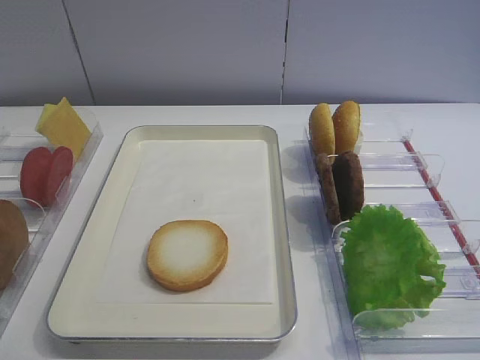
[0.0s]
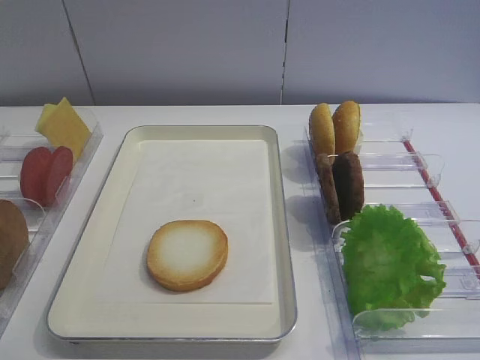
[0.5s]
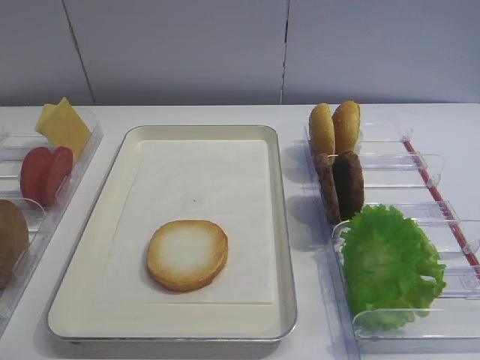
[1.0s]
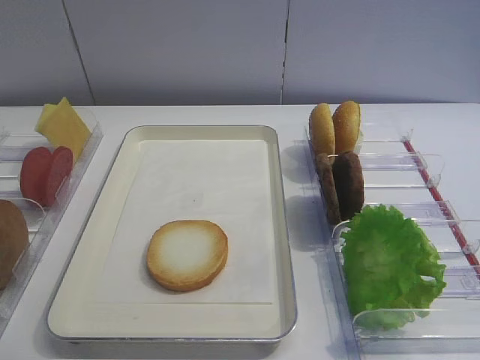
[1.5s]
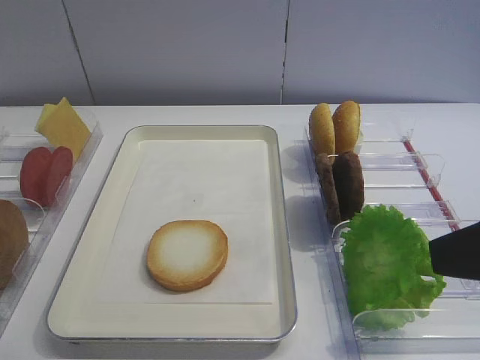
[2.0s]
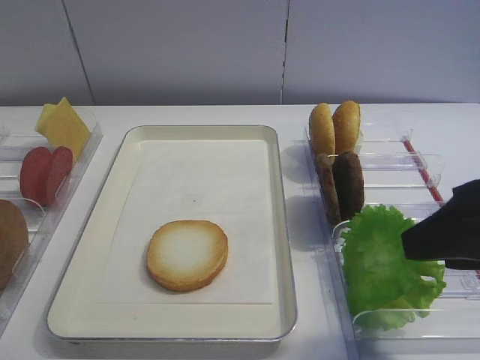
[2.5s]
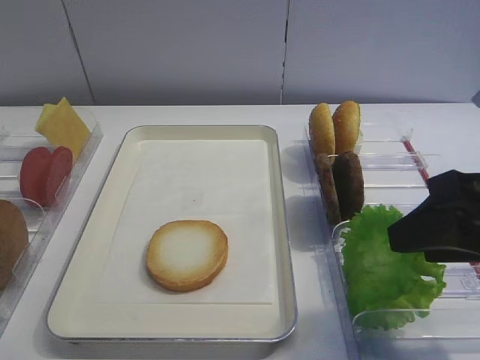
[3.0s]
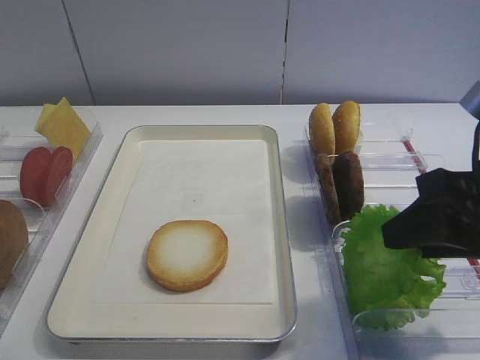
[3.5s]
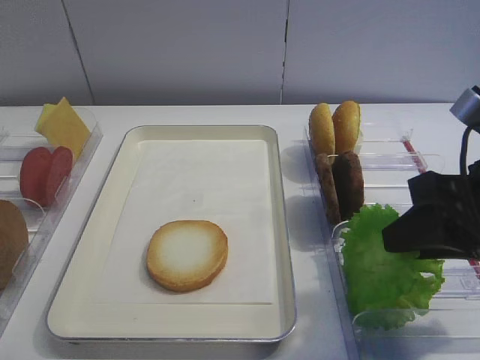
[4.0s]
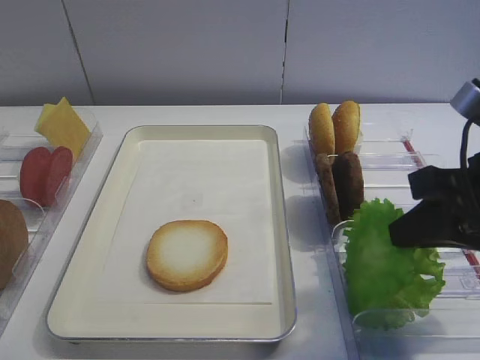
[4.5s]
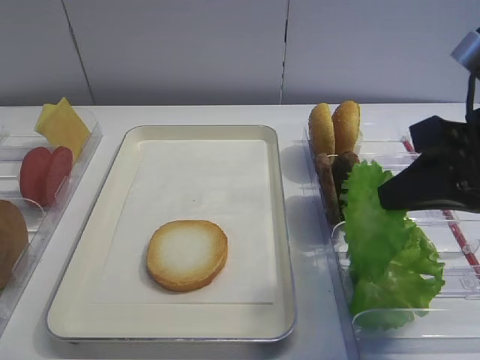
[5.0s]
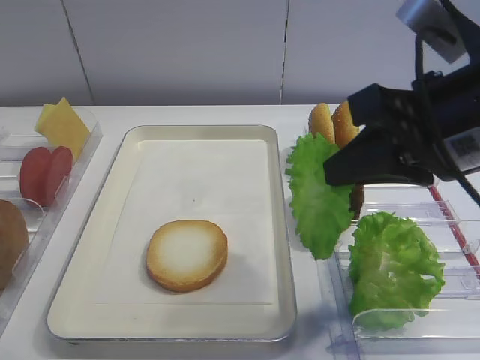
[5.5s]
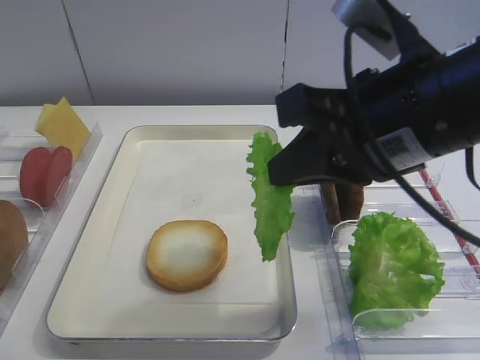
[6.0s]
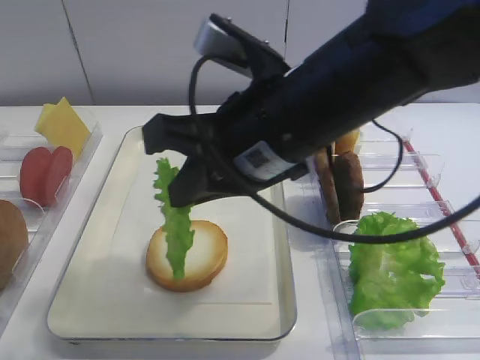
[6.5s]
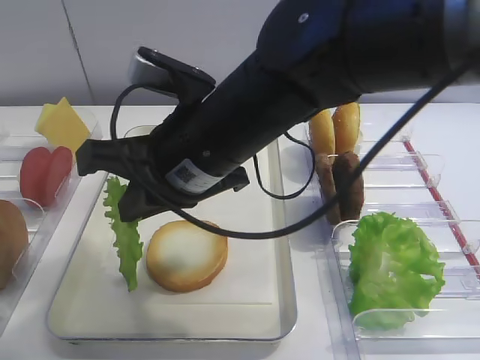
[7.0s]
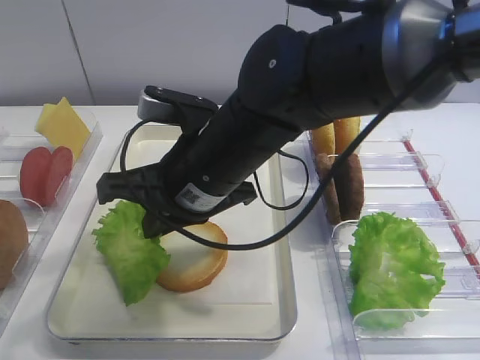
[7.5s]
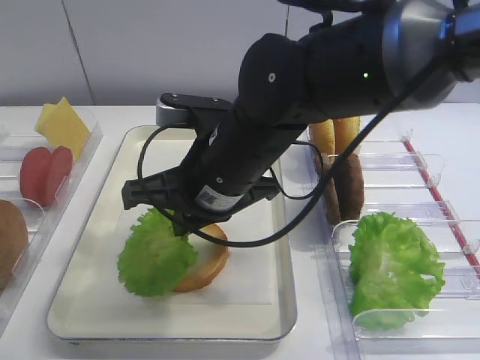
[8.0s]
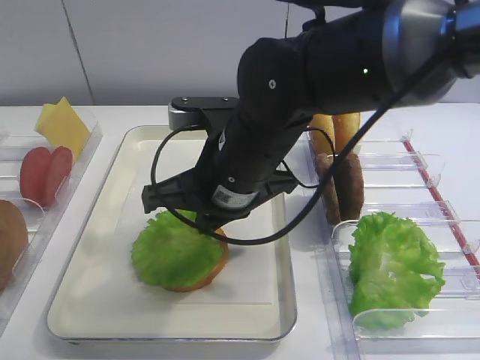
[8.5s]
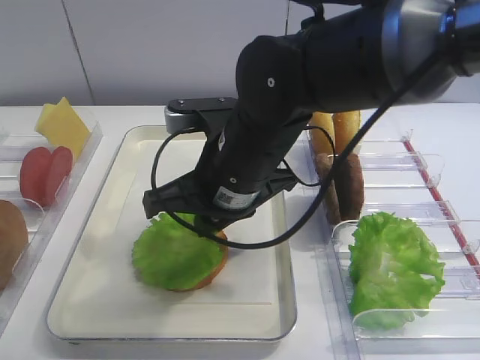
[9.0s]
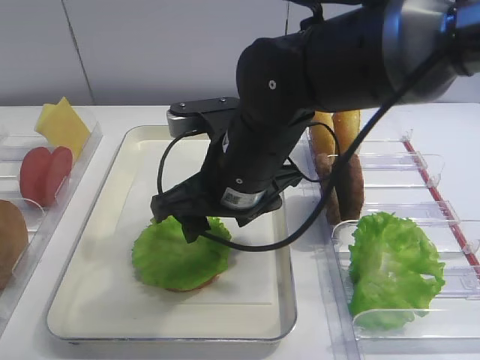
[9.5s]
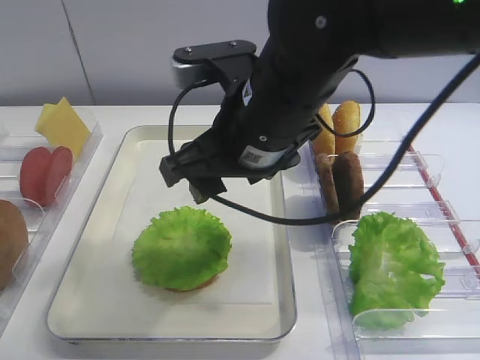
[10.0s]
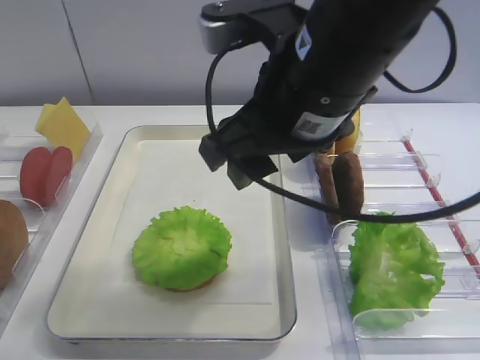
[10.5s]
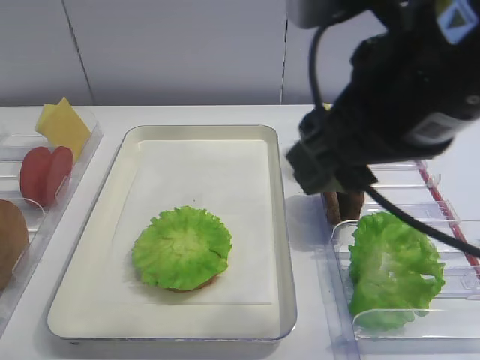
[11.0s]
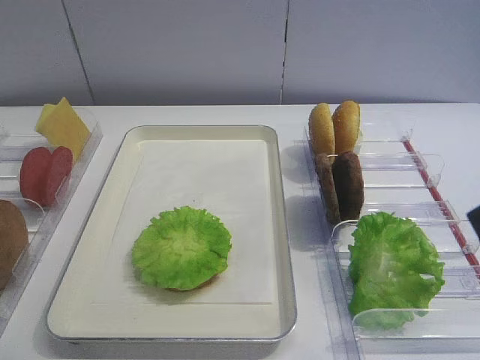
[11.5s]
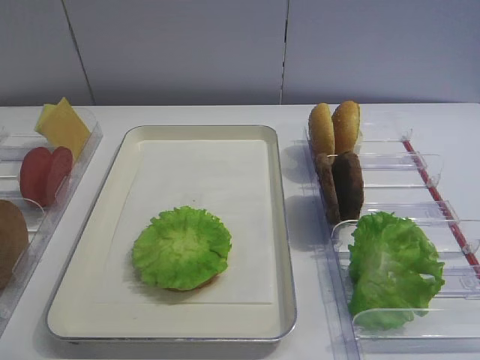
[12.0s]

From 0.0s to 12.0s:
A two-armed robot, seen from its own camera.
Step, from 0.0s to 4.5s: Pick up the lettuce leaf with the right gripper.
Step, from 5.0s to 9.5s: Place the lettuce leaf on the bread slice with the right gripper.
From 2.0s to 4.0s: The right gripper travels forward and downward by approximately 10 cm, and closes up.
From 4.0s to 6.0s: The right gripper shifts some 15 cm to the left and upward.
From 6.0s to 8.0s: The right gripper heads to the left, downward and forward, covering about 15 cm.
From 8.0s to 10.0s: The right gripper heads upward, covering about 5 cm, and opens.
From 10.0s to 12.0s: The right gripper shifts about 30 cm to the right and backward.

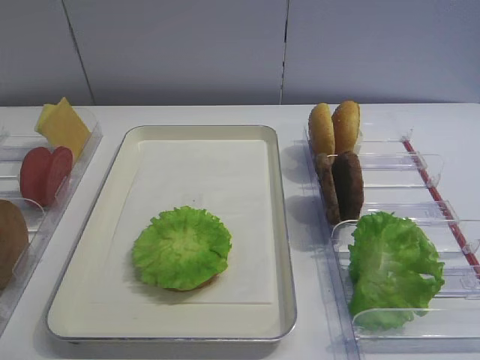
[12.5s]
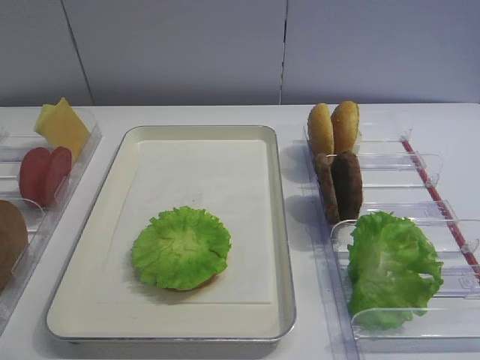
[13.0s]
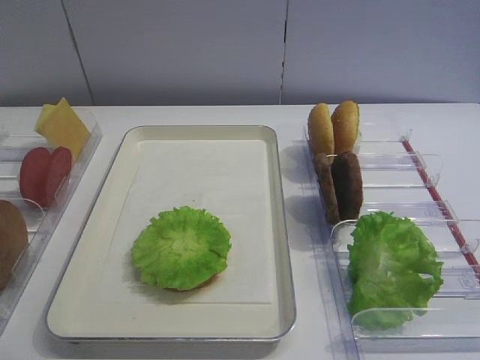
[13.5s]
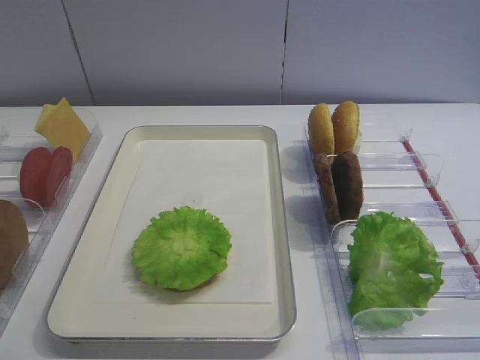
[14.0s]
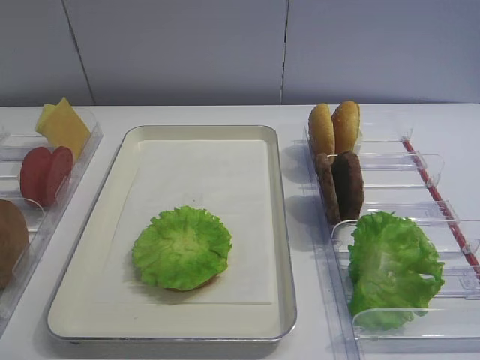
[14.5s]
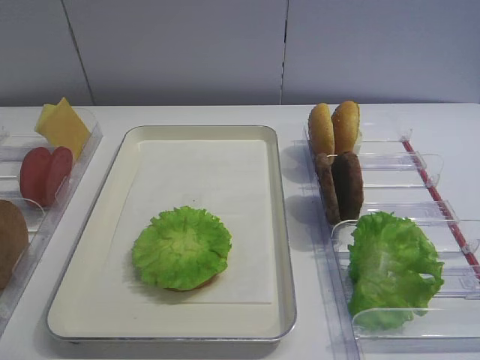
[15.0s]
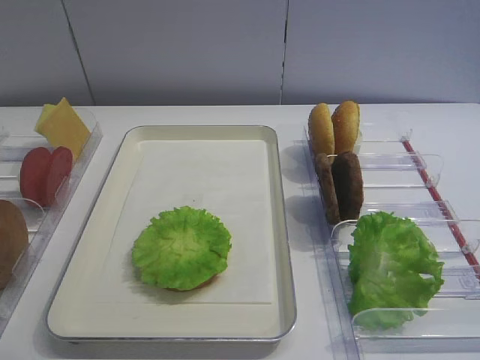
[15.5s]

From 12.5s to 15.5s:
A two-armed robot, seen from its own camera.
From 14.0s to 15.5s: The two grippers keep their place.

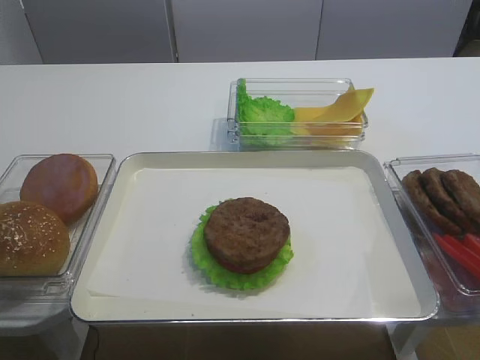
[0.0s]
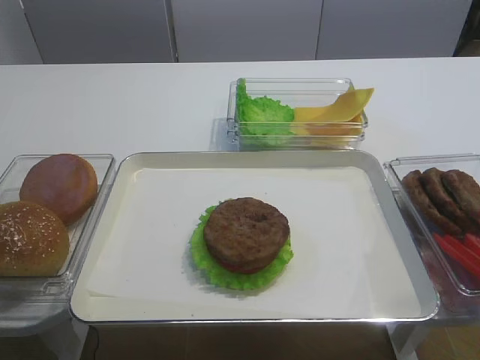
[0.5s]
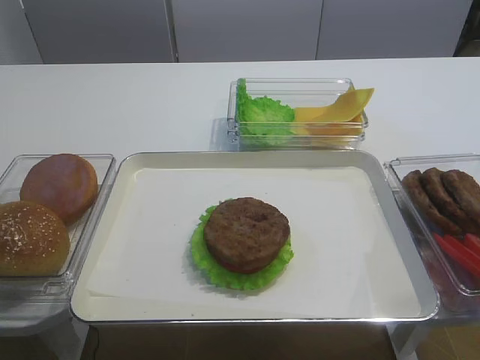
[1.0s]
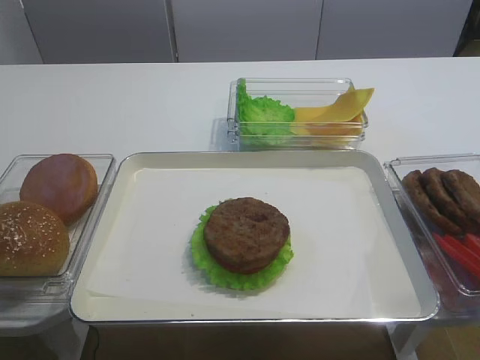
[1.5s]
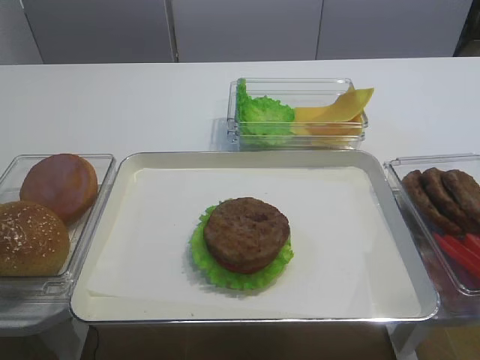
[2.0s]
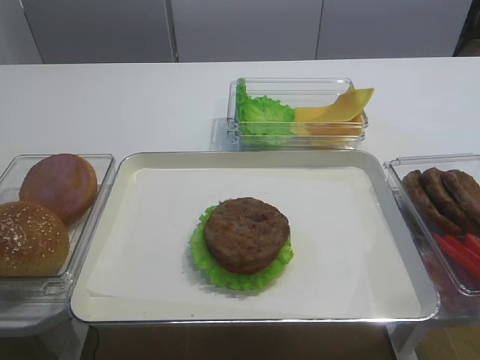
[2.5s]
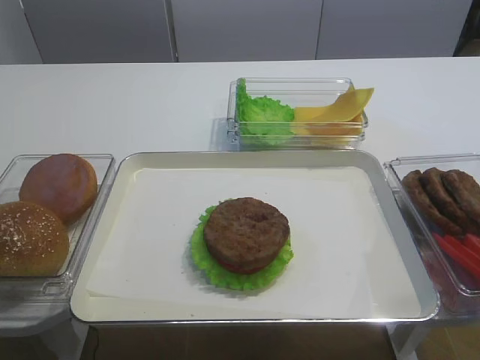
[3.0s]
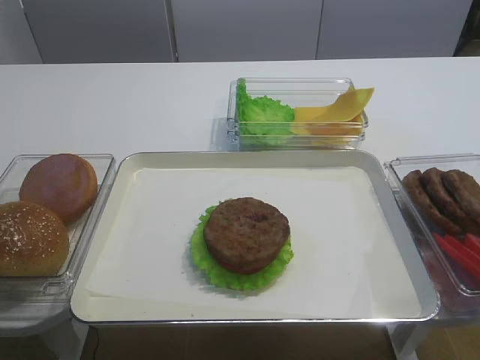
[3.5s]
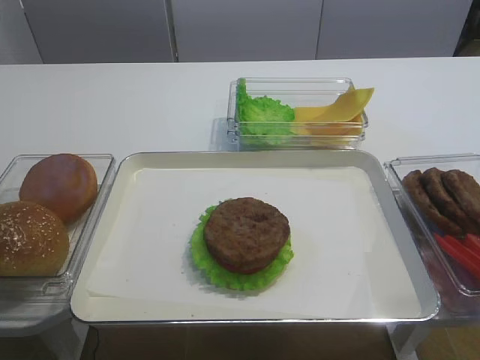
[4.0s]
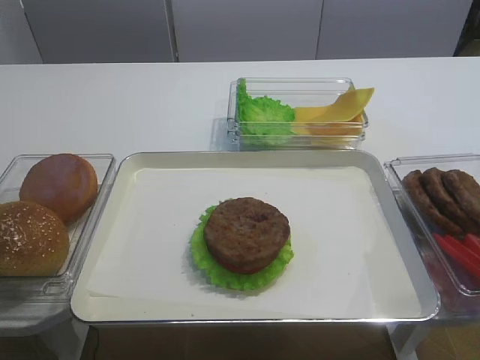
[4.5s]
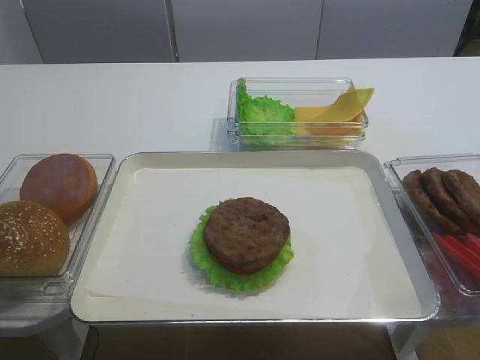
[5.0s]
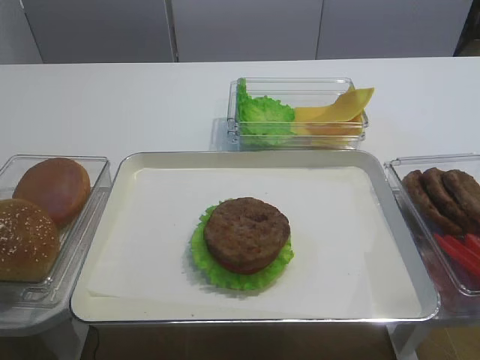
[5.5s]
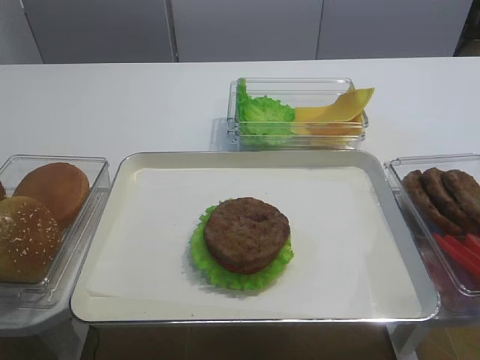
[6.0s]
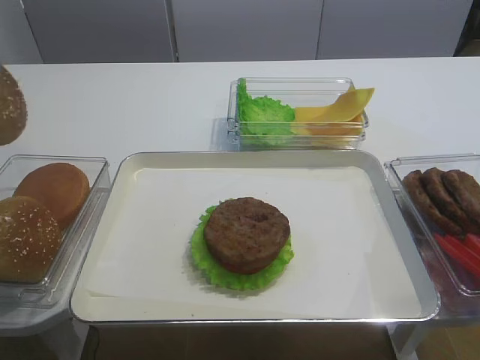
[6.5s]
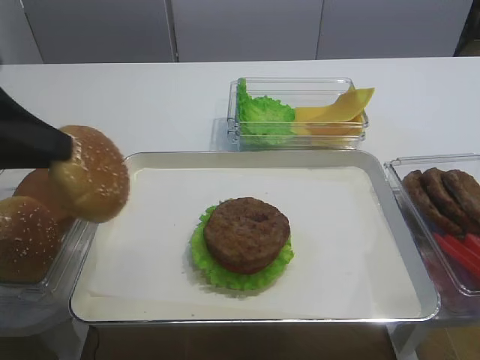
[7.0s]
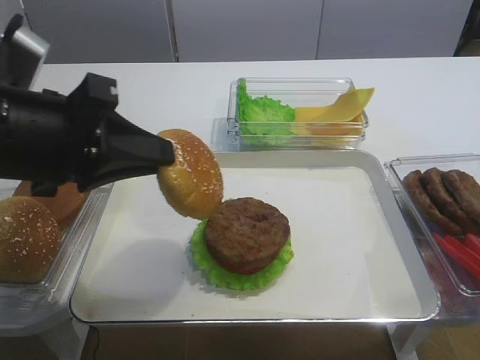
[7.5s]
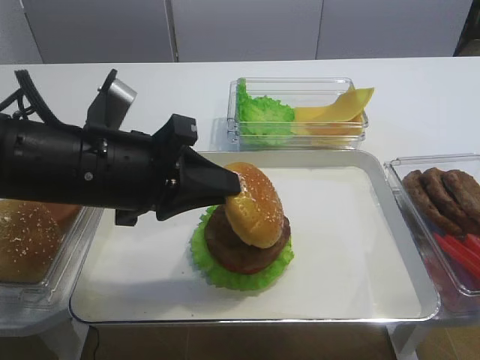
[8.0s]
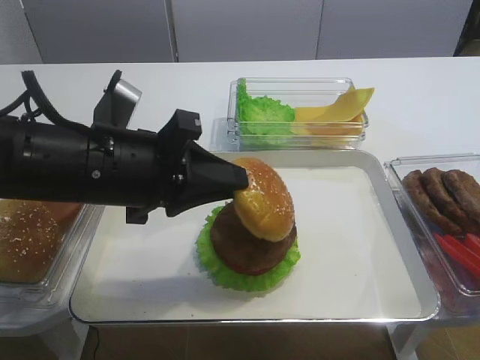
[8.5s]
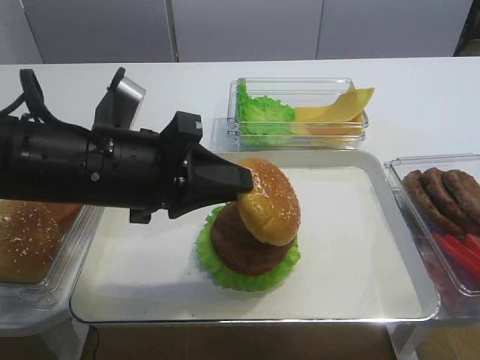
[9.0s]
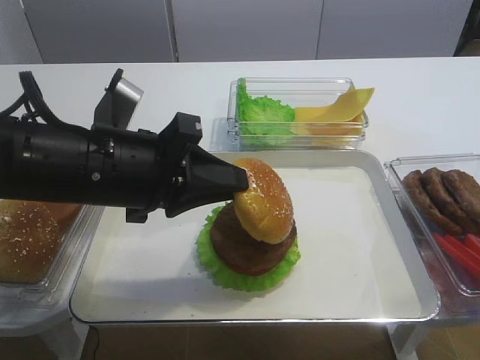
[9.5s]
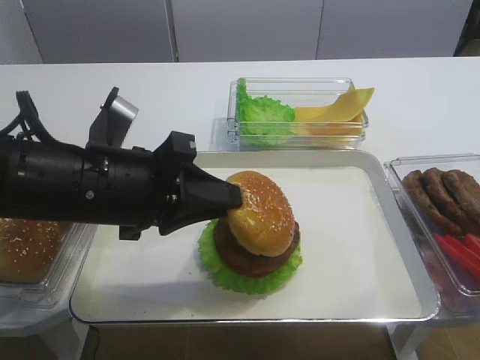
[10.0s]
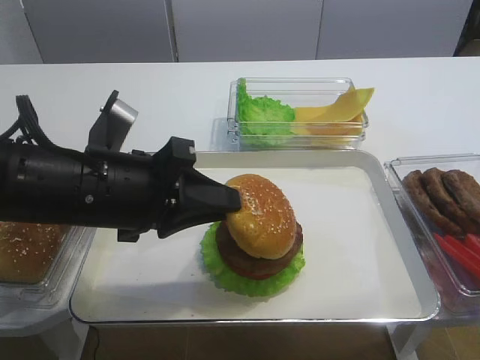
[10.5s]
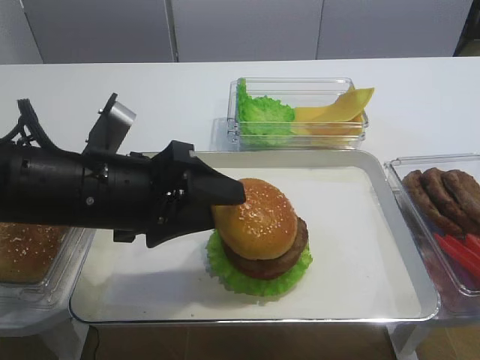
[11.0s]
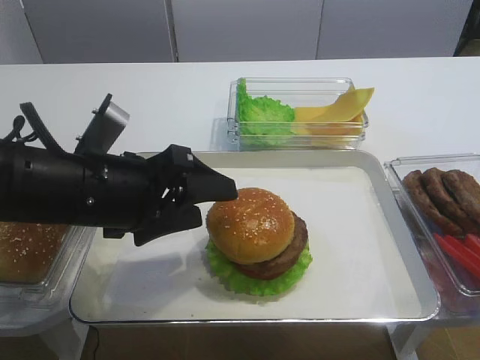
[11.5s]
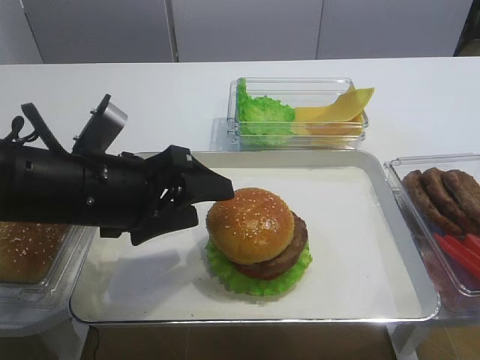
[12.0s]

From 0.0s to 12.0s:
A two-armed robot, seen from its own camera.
Step, from 0.0s to 5.5s: Pick up the hamburger lid with the left gripper.
From 4.0s to 6.0s: The left gripper closes up.
From 6.0s to 8.0s: The left gripper shifts some 20 cm to the right.
From 8.0s to 10.0s: The grippers move only a little.
From 10.0s to 12.0s: The left gripper opens up.
